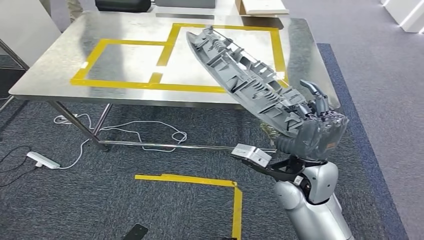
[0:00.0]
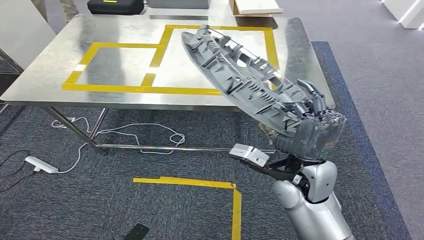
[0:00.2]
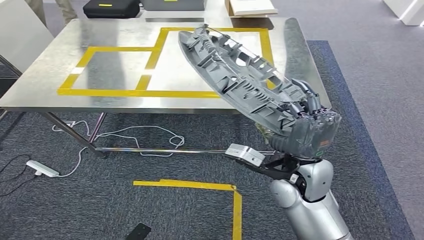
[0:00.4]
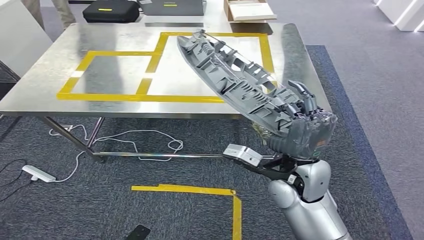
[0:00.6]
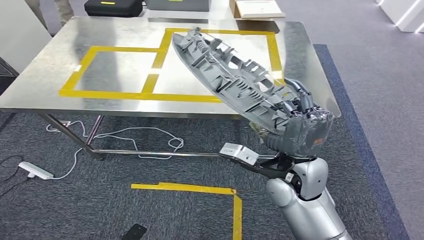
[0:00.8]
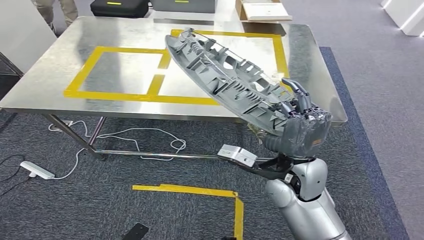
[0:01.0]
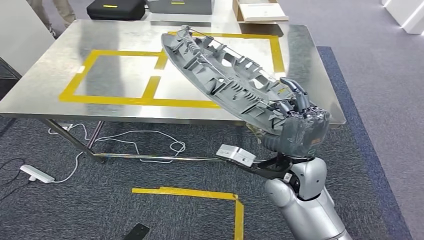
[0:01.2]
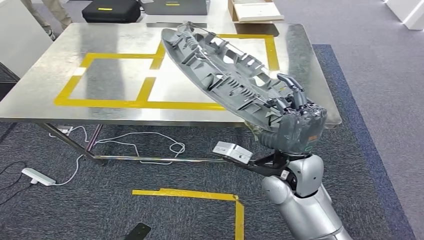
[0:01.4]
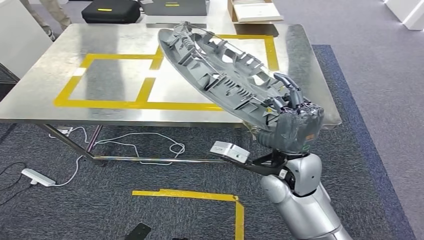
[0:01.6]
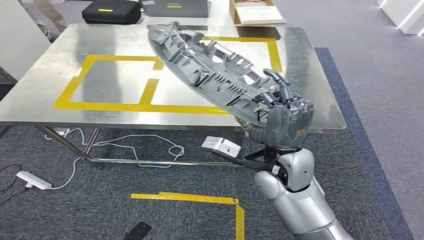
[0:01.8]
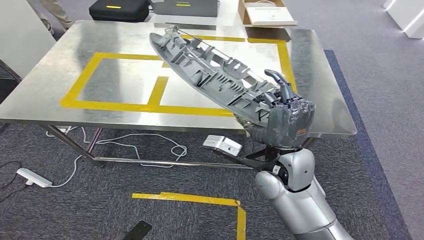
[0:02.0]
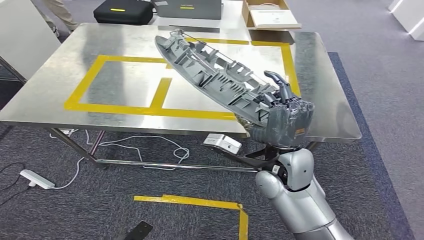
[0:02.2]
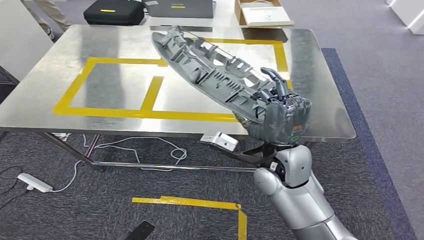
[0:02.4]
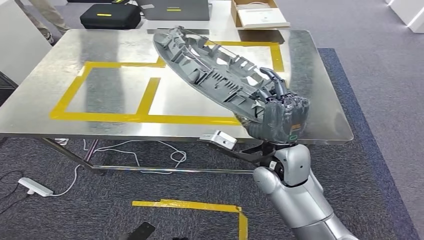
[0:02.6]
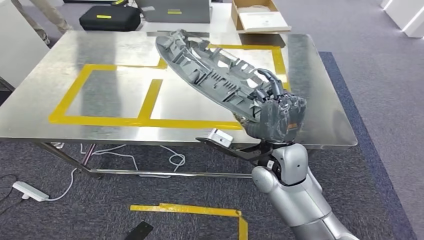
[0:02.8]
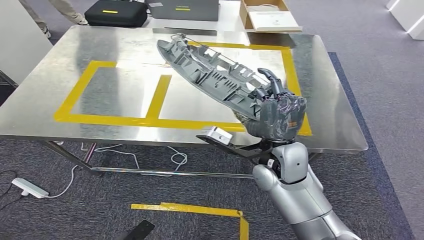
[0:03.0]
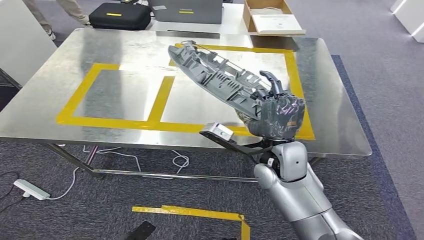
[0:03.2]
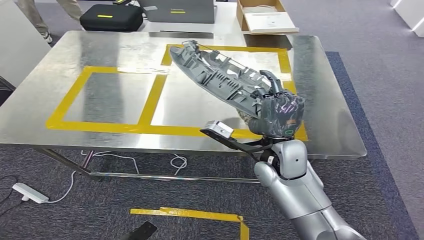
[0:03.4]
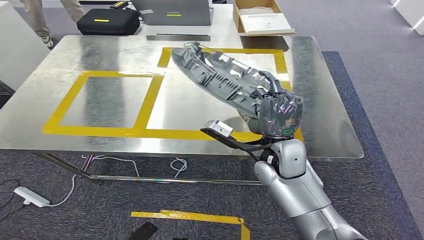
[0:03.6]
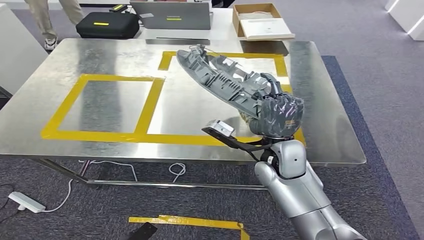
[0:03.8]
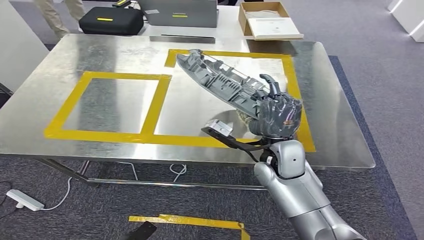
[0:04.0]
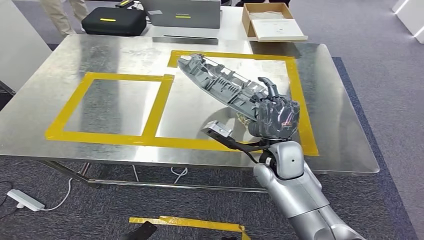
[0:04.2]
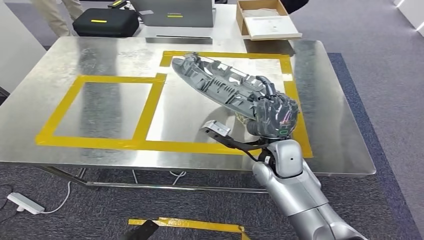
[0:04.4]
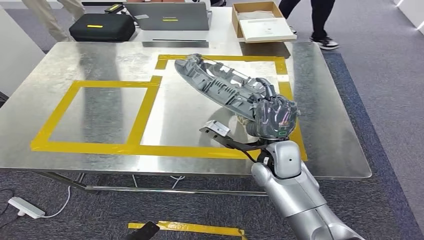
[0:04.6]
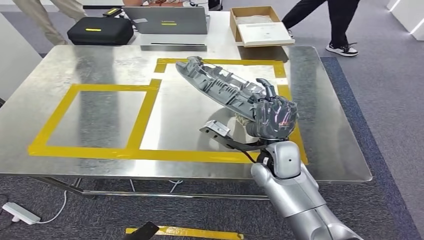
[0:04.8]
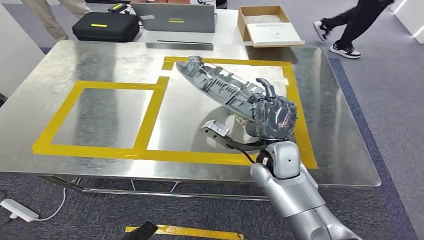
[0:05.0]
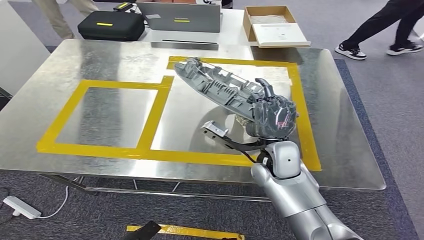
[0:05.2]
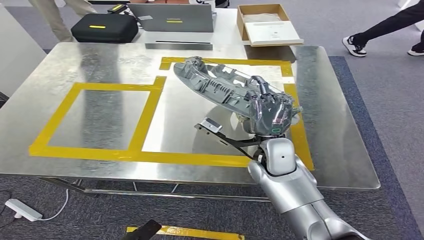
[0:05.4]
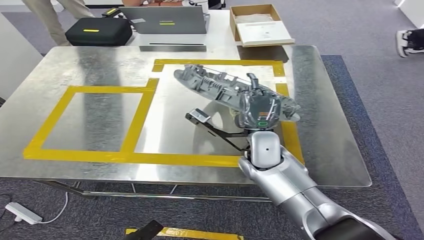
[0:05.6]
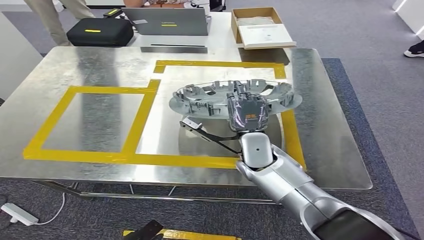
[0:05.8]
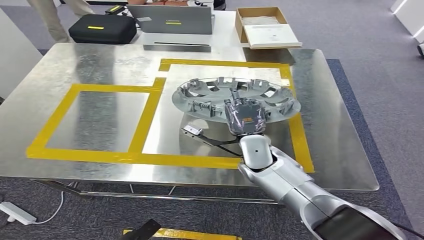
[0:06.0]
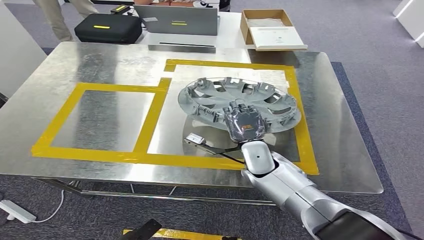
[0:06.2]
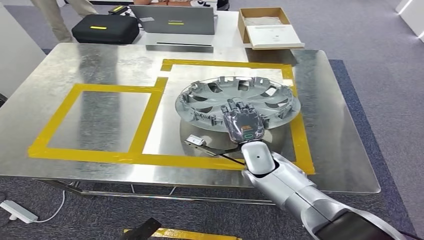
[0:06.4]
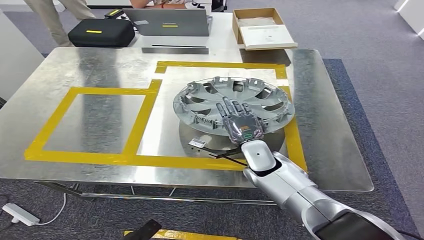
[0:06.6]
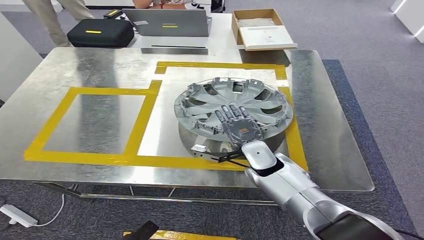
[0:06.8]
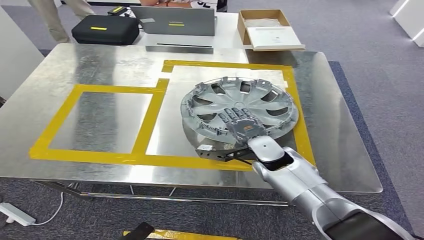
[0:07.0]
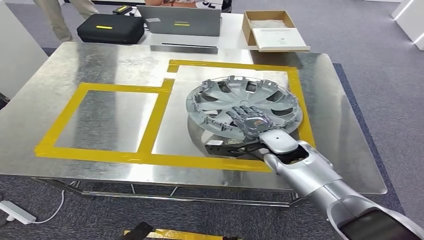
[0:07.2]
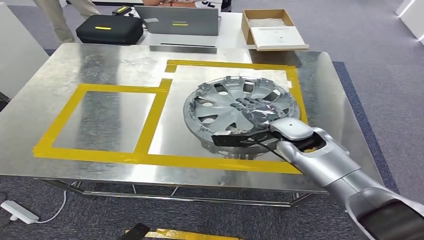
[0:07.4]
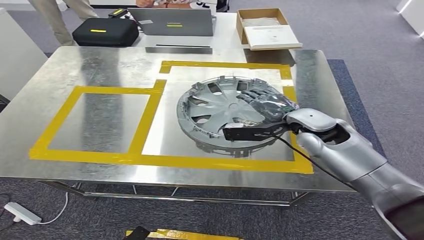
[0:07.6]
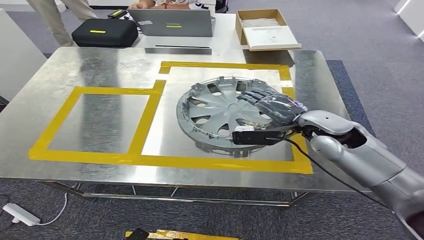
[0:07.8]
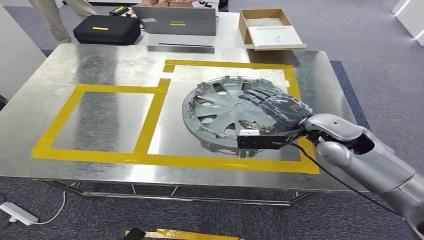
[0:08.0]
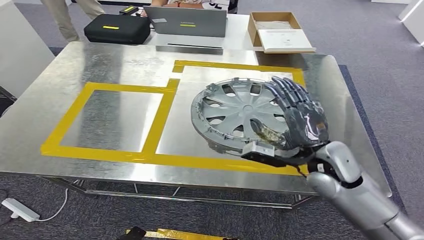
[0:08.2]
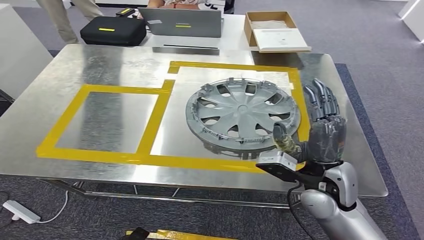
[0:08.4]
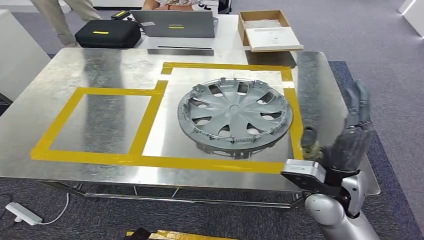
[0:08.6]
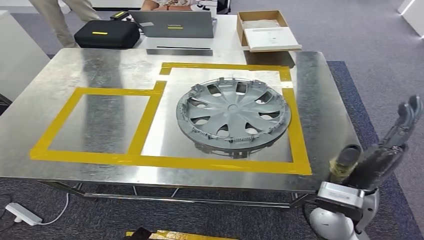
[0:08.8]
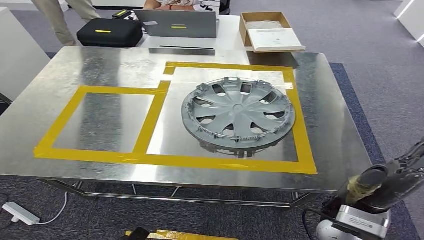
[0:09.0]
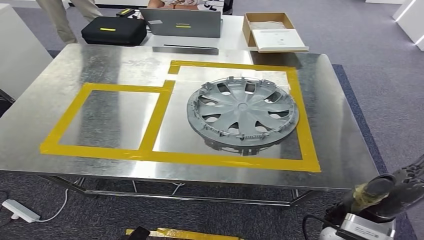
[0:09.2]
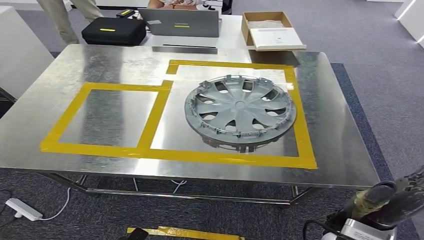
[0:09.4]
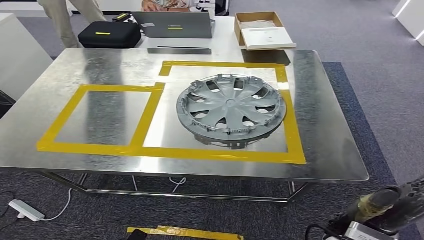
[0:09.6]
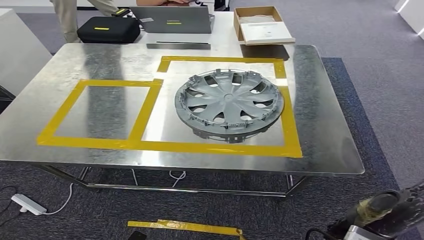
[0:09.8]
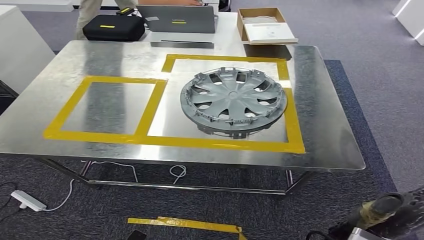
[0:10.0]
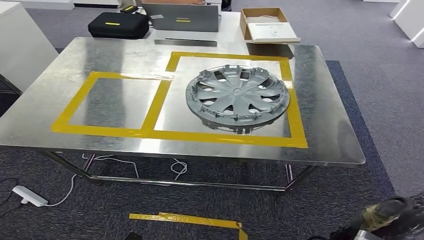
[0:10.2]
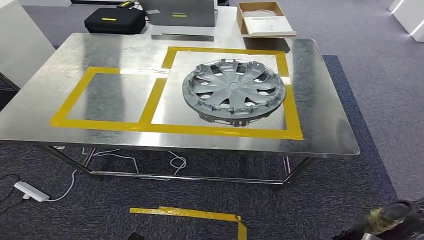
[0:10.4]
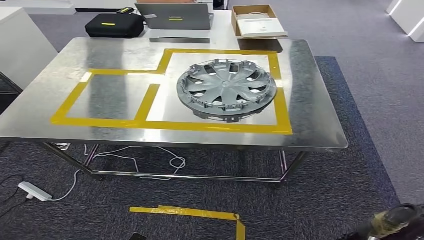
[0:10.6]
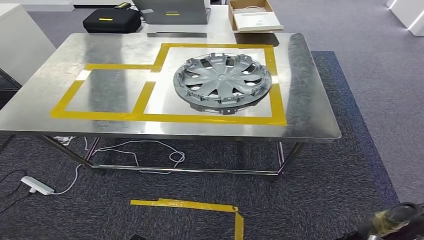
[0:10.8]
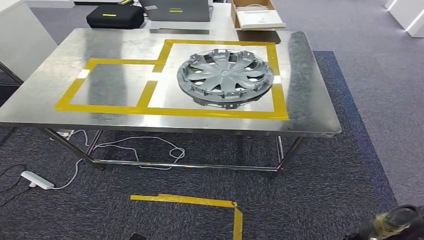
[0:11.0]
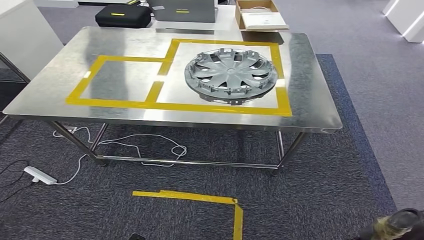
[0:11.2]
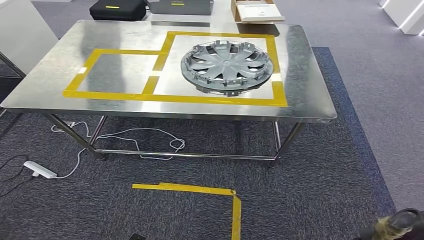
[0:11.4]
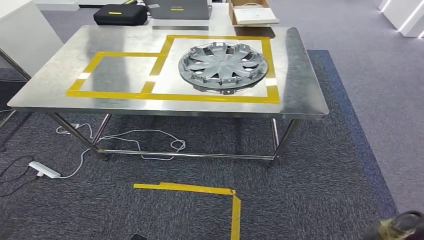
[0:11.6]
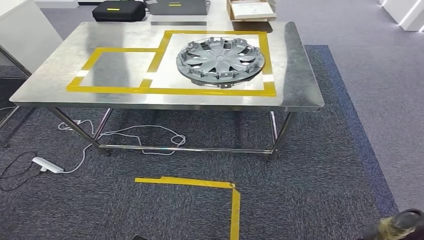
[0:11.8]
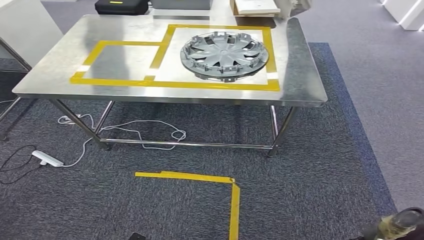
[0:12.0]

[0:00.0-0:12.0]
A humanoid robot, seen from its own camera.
Step, 0:00.0 to 0:09.0: Insert the small component into the corresponding slot on the workbench.

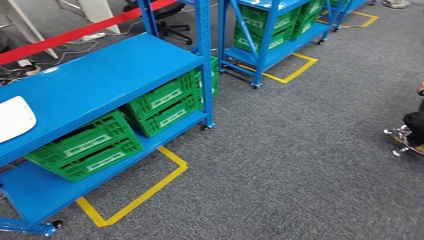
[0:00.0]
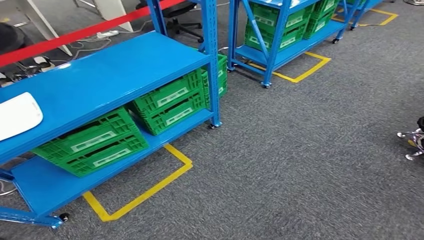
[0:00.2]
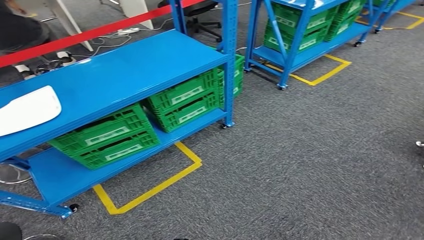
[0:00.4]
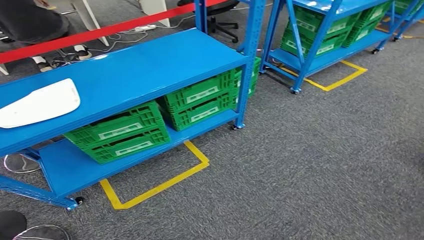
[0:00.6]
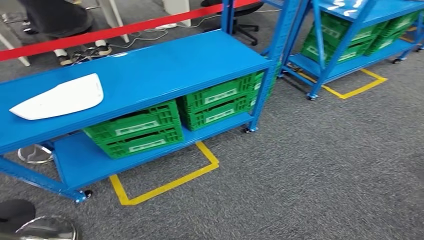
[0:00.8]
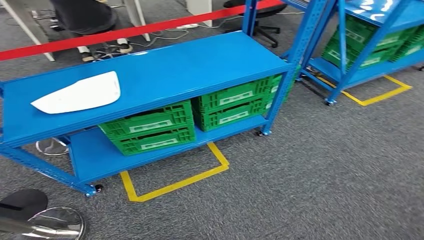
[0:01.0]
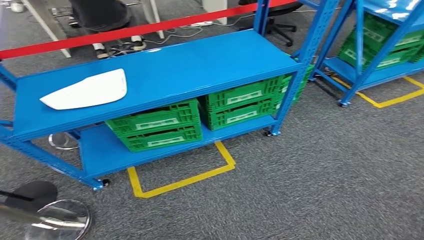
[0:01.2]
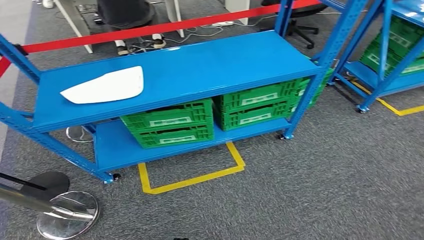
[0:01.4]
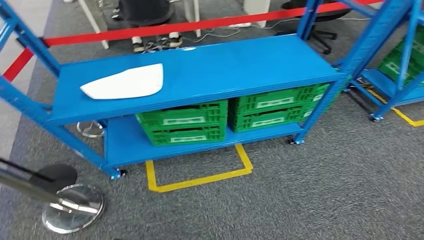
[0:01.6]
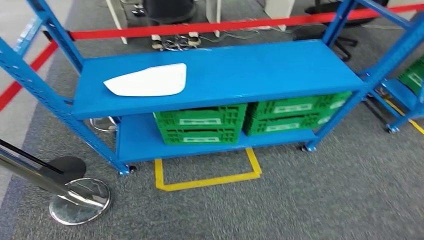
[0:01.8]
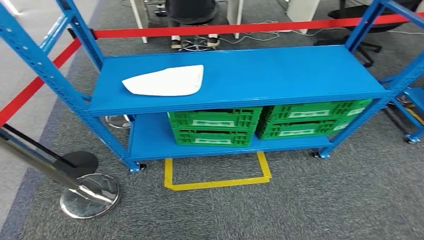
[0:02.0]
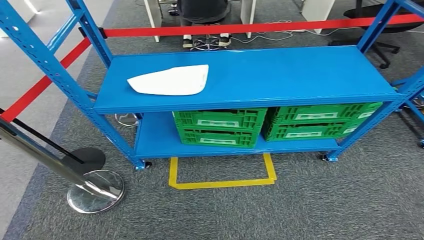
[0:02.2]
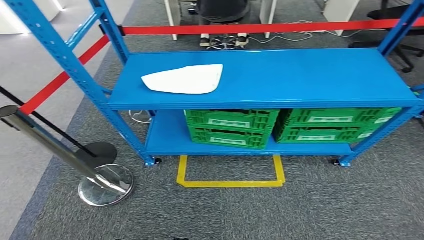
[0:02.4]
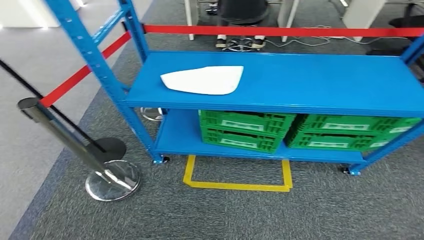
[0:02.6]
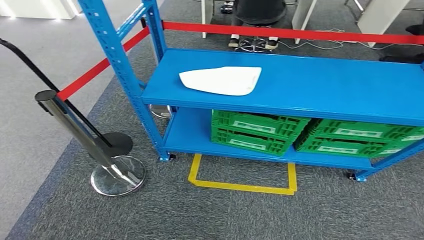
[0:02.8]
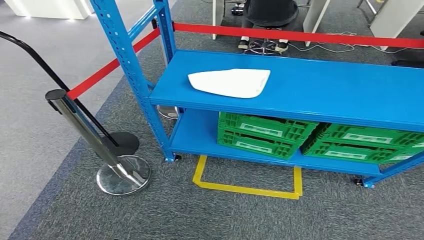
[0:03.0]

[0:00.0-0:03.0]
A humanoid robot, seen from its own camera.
Step, 0:00.0 to 0:03.0: Move to the initial position of the workbench.
